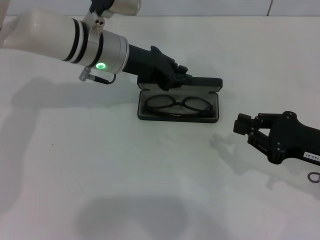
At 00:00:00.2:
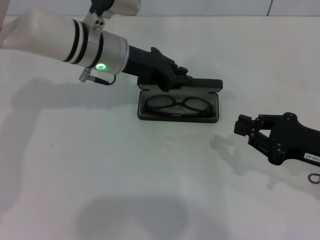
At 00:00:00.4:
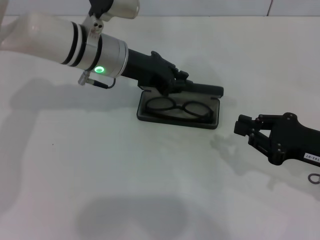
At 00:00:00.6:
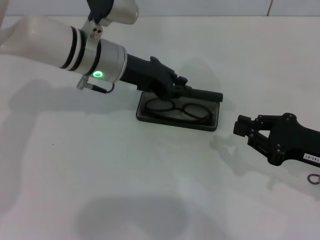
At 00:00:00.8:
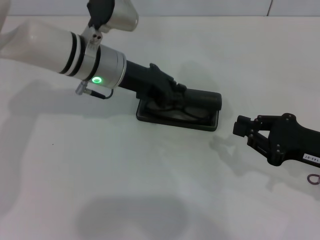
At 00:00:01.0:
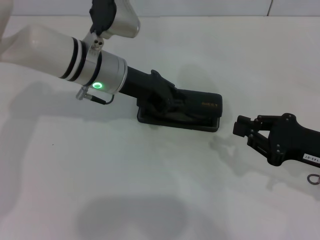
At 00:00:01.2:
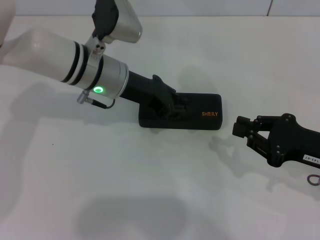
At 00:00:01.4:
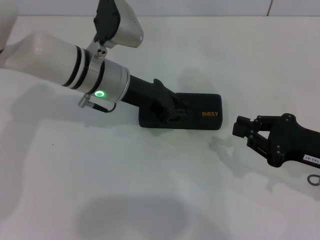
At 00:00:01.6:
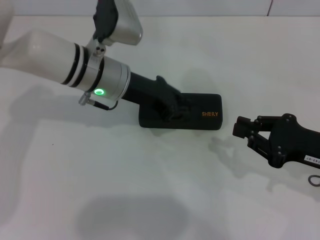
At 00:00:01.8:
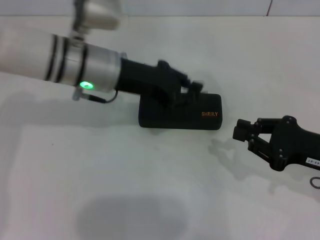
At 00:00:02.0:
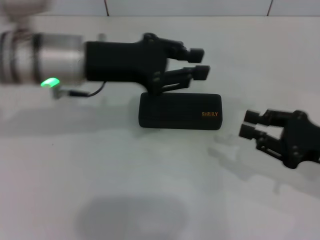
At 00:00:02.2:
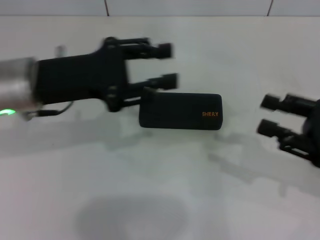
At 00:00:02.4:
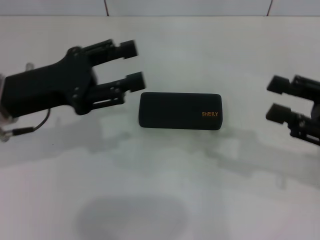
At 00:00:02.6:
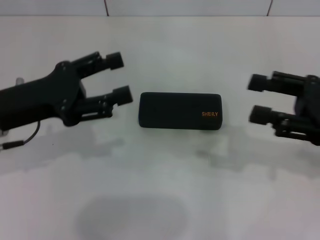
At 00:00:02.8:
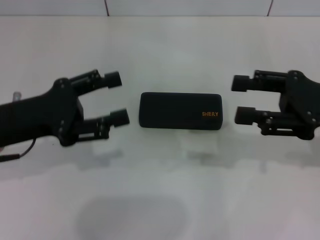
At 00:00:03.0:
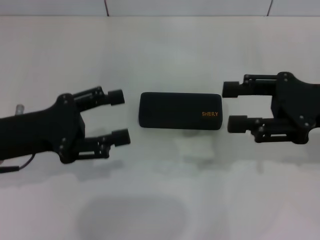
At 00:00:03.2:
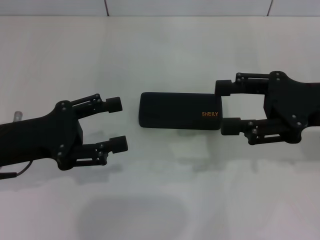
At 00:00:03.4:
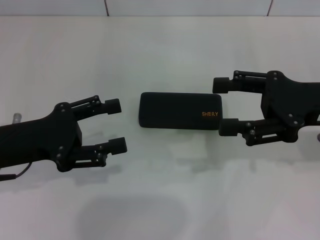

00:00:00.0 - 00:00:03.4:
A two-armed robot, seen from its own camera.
00:00:00.0 - 00:00:01.6: The grippers move only a little.
00:00:01.6 - 00:00:03.4: The right gripper shifts some 10 cm upward, and opens its fingers; the left gripper shifts approximately 20 cm to the left and backward, and opens up.
